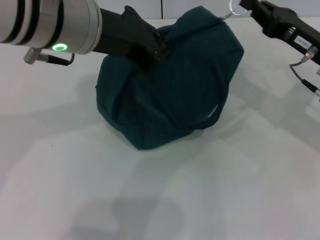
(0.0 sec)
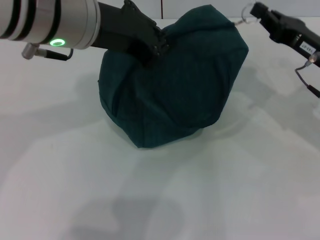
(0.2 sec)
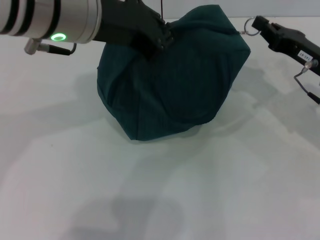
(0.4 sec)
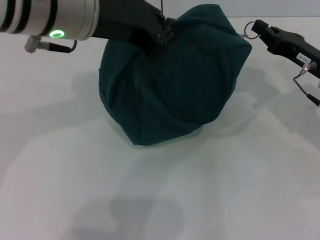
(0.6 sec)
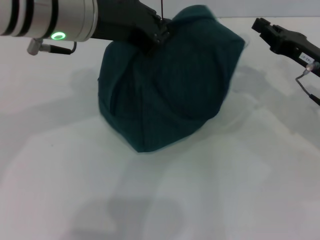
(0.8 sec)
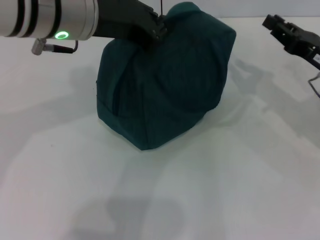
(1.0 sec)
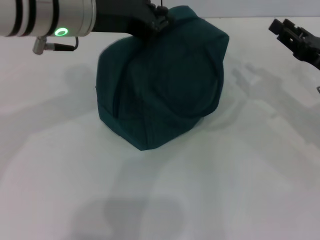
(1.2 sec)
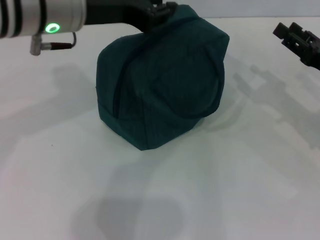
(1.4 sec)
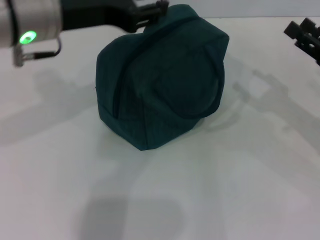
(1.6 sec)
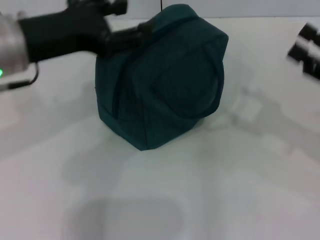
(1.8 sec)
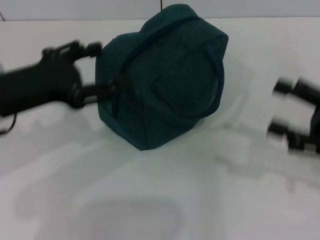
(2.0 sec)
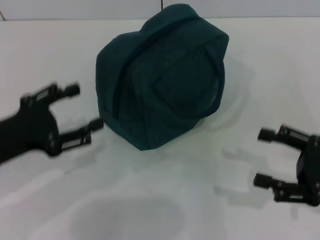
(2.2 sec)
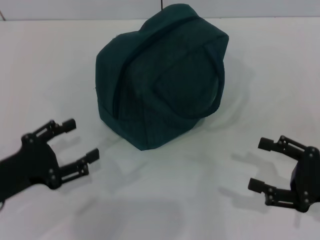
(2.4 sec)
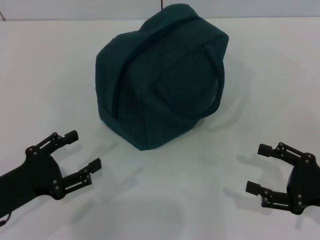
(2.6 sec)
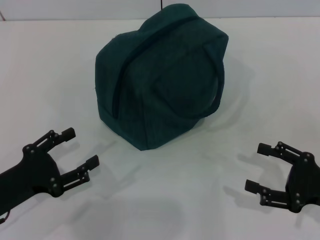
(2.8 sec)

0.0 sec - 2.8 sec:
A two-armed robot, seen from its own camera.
Step, 1.0 sec - 1.2 sec: Hold the lunch bag with your left hand.
0.0 sec - 1.4 sec: The right gripper travels to the right by approximately 5 cm, and opens its fingers.
1.4 sec - 2.8 sec: The right gripper shifts roughly 10 cm backward, and opens its fingers. Meanwhile the left gripper heads downward, backward and to the left, covering some 30 cm, and opens.
